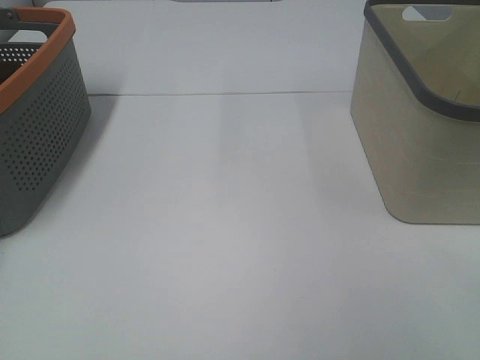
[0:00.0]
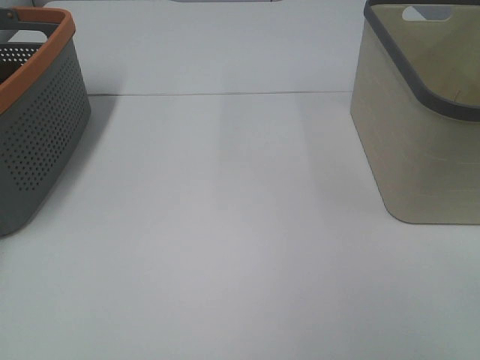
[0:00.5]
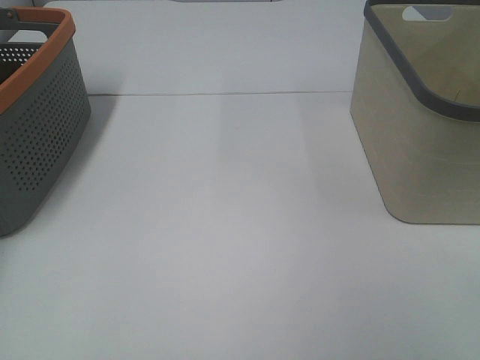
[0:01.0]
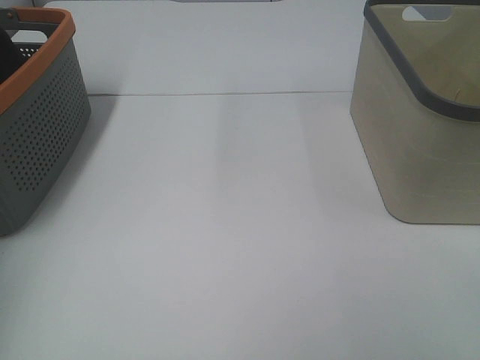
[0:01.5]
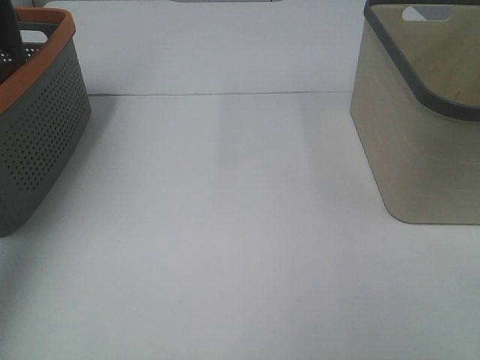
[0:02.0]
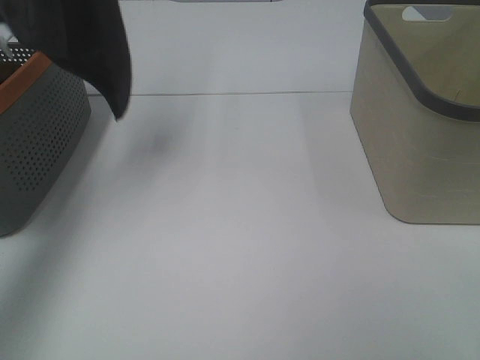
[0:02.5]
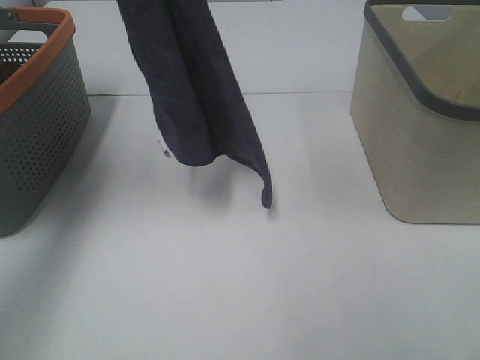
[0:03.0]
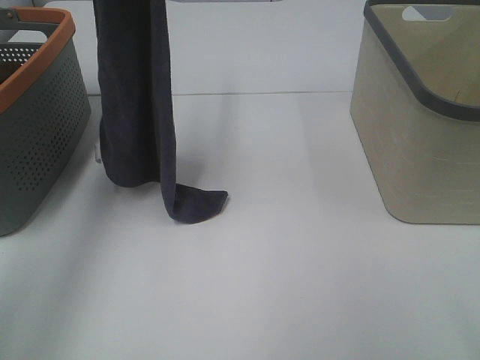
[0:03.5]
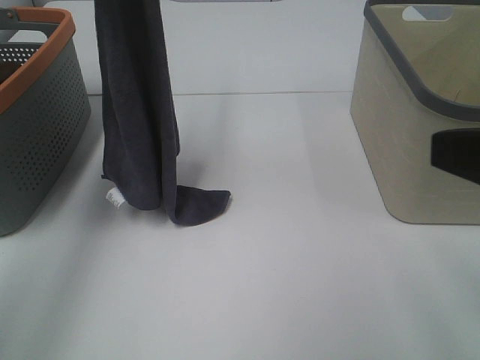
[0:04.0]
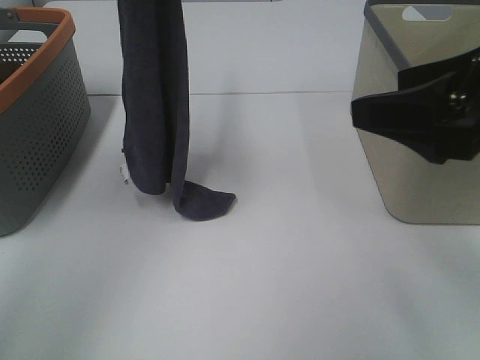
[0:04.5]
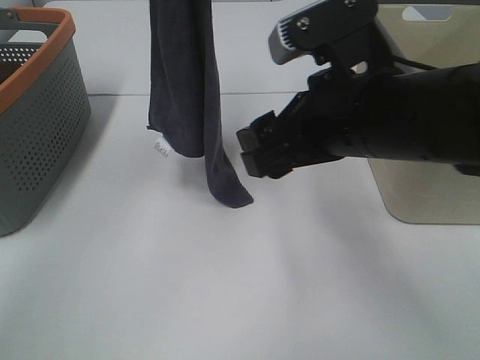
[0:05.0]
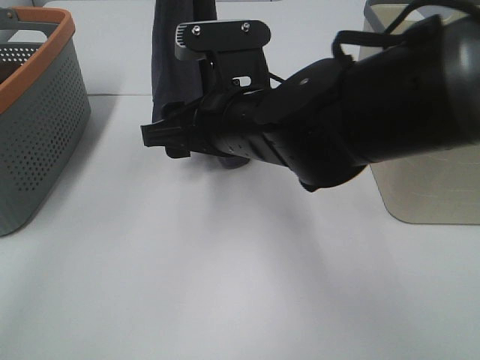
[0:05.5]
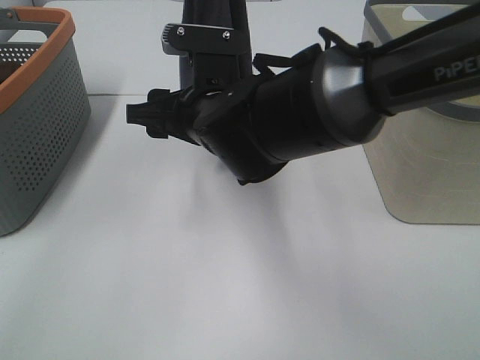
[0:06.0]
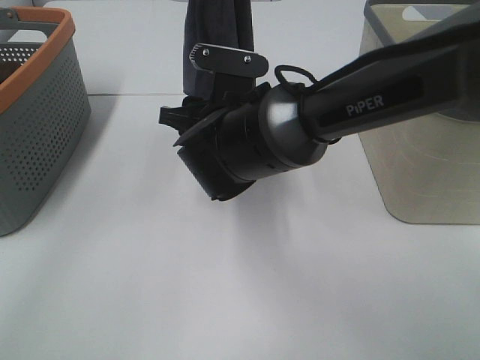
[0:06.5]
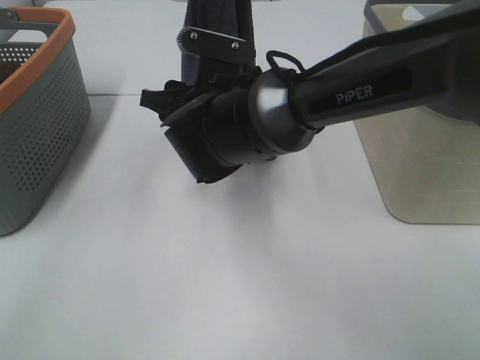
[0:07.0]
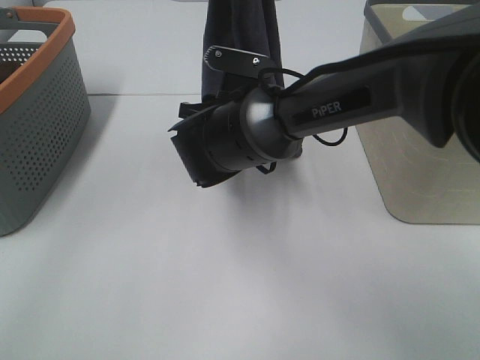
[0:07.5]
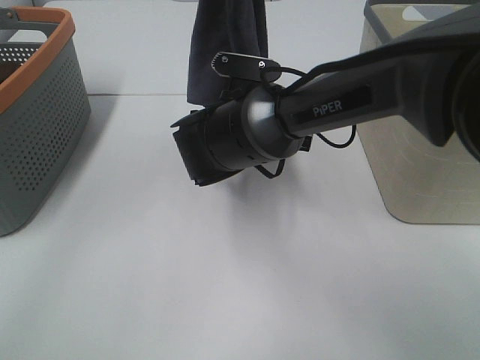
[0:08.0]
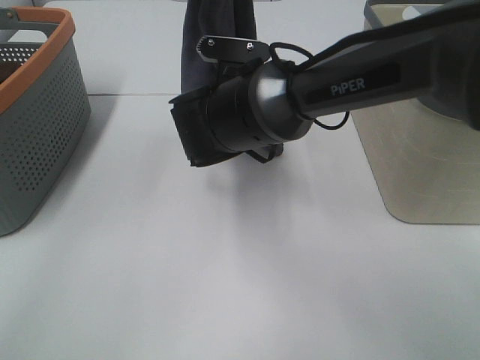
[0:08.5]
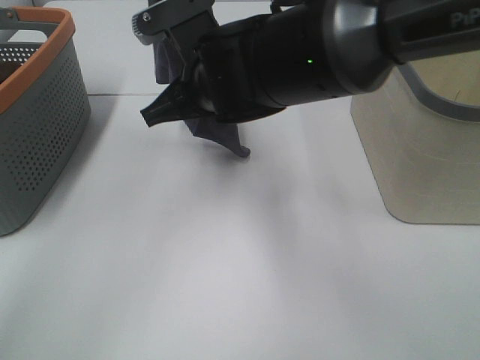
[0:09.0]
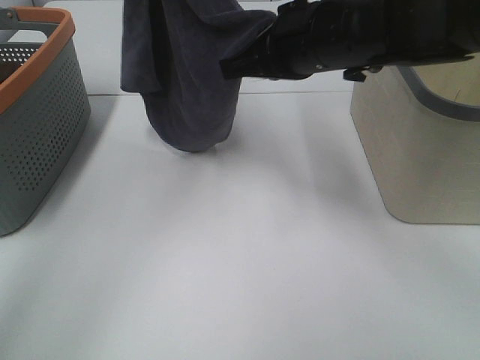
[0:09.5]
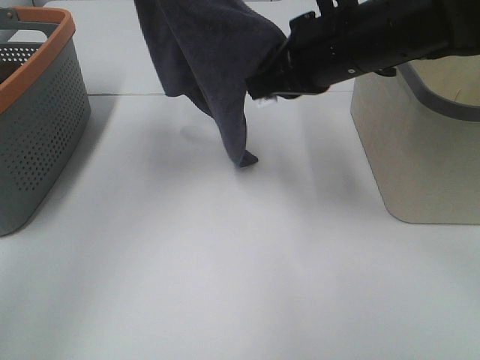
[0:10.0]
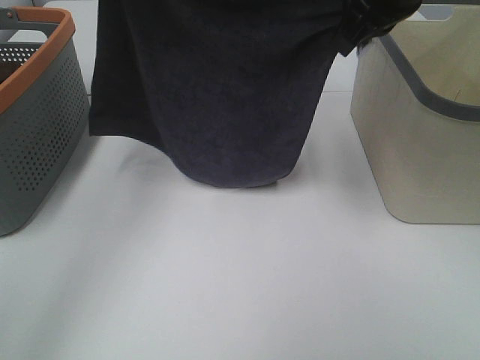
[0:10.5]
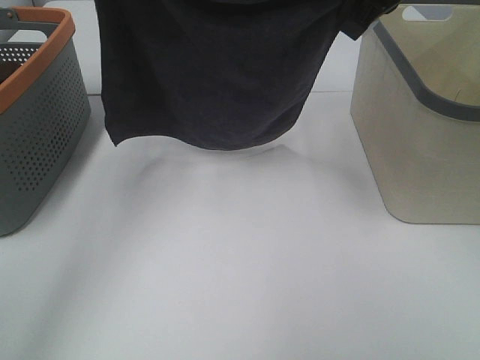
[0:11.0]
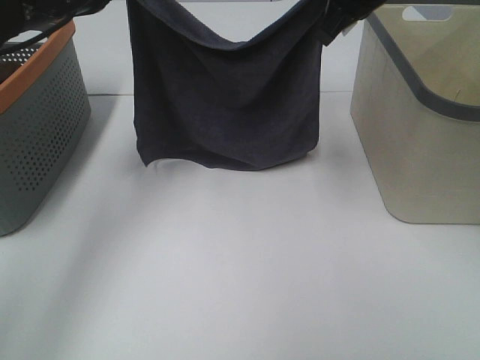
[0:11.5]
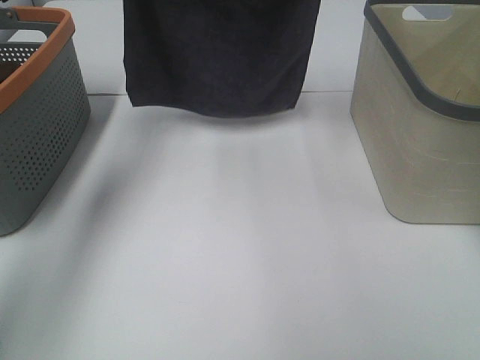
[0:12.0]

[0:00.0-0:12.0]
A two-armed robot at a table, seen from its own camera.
Task of the whole recording: Remove the towel and place it.
Step, 0:03.0 to 0:08.0: Right hand: grab a corner of the grey towel and straighten it.
Step, 0:08.5 to 0:11.0: Left hand: spread the grey towel flat on the table.
Step, 0:08.5 to 0:11.0: Right hand: spread the grey towel flat on the table.
0:00.0 to 0:02.0: The left gripper is displaced upward by roughly 35 cm, and closes up.
0:02.0 to 0:04.0: The left gripper travels to the right and downward by roughly 20 cm. Meanwhile the right gripper moves forward, approximately 10 cm.
0:04.0 to 0:06.0: The right gripper moves to the left, forward and downward, some 35 cm, while the left gripper heads to the right, covering about 10 cm.
0:06.0 to 0:08.0: The right gripper goes roughly 5 cm downward.
0:08.0 to 0:10.0: The right gripper moves upward and to the right, about 15 cm, and closes. Meanwhile the left gripper heads to the left, covering approximately 10 cm.
0:10.0 to 0:12.0: The right gripper moves forward and upward, about 20 cm. Meanwhile the left gripper goes approximately 10 cm downward and forward.

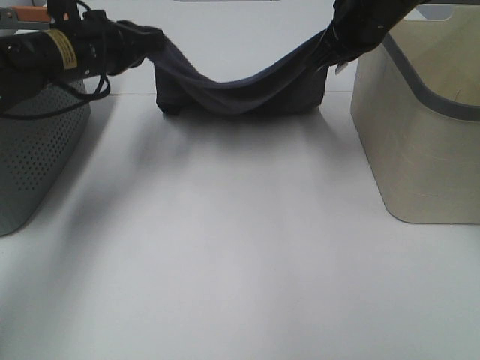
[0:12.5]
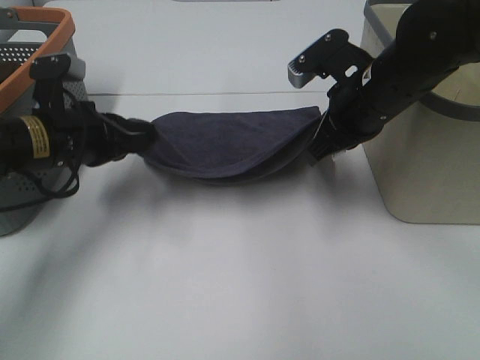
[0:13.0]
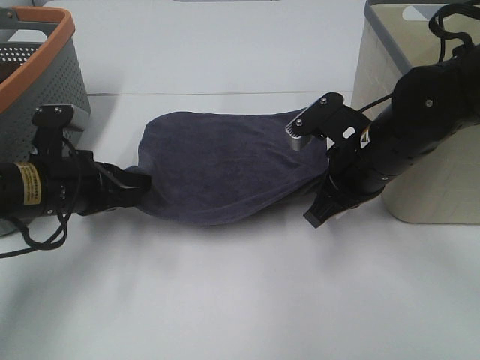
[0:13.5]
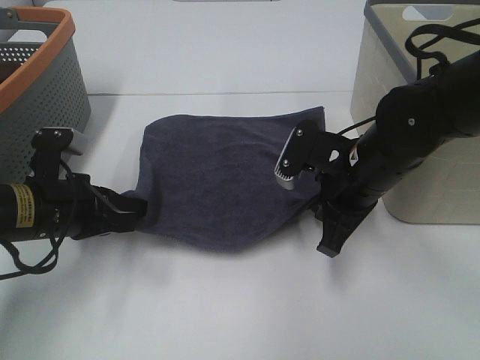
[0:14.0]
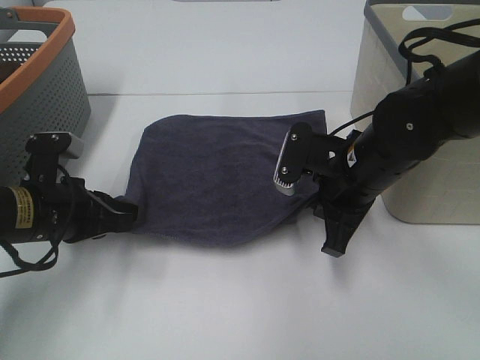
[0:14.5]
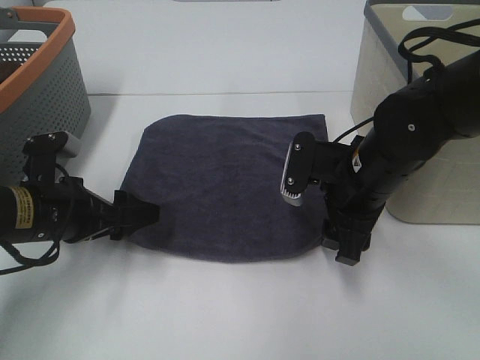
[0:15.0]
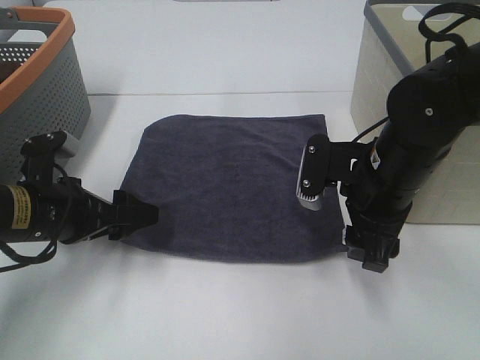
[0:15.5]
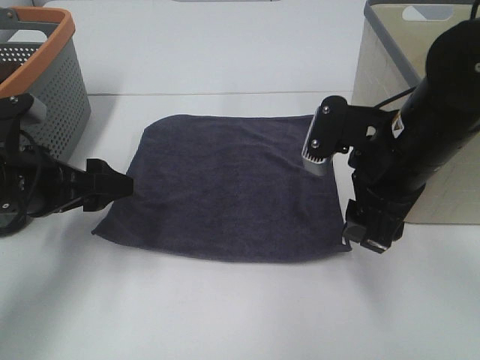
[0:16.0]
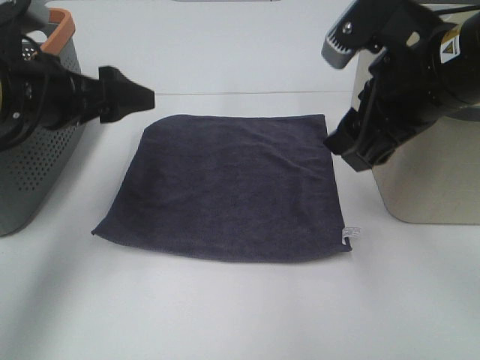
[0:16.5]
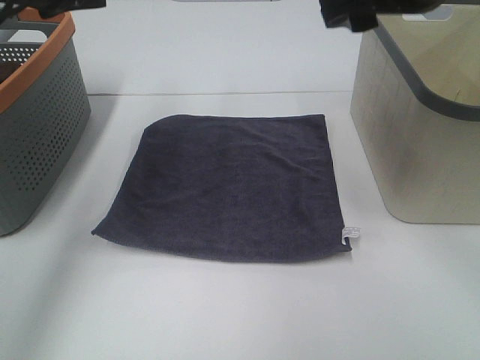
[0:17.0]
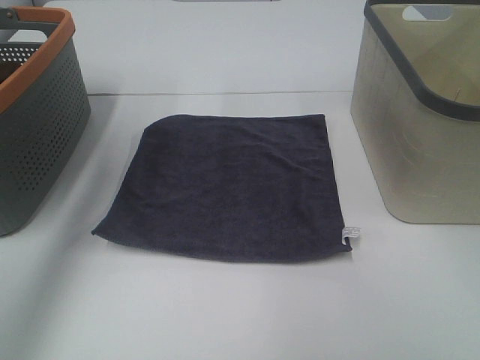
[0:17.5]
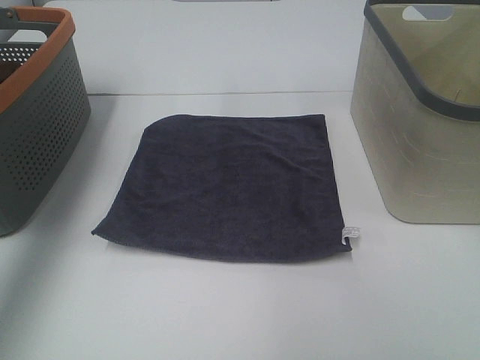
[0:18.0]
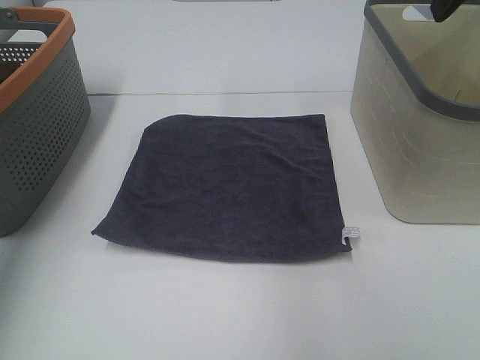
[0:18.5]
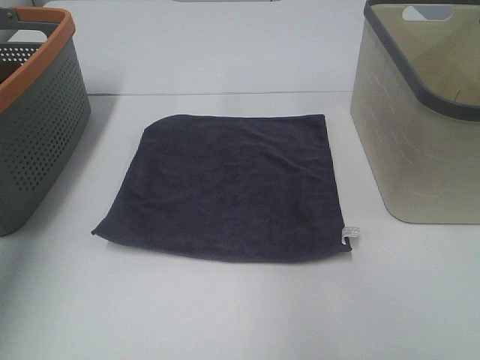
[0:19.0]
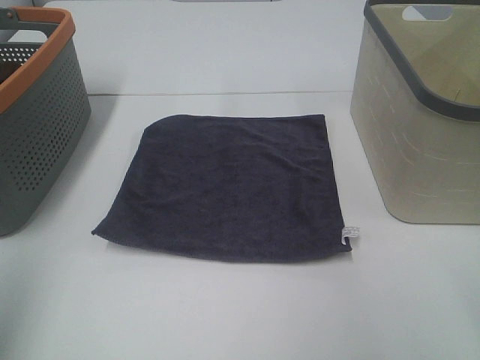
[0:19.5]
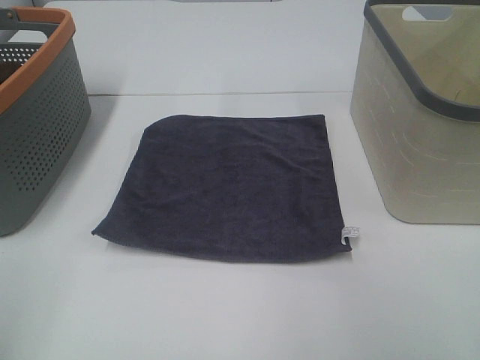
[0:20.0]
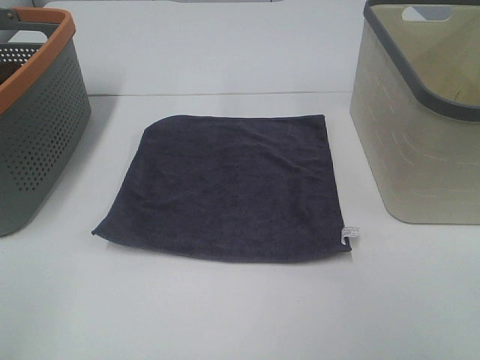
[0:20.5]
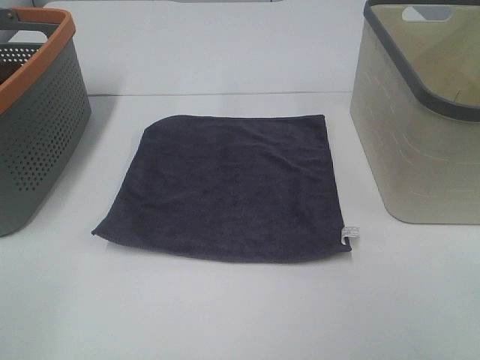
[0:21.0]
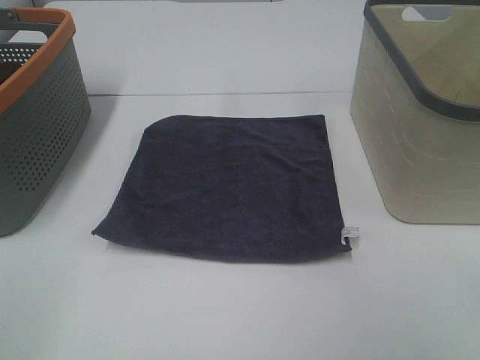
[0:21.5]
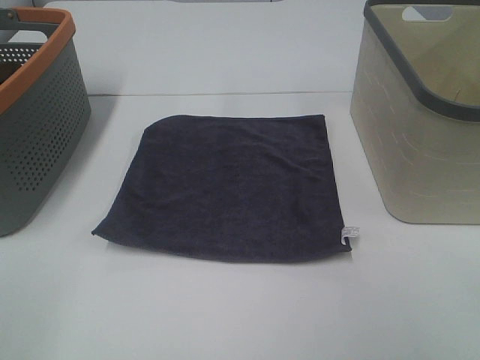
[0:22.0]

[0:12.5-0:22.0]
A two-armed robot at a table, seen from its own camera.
Task of the whole recording: Remove the towel and place it.
0:12.5 to 0:14.5: The two grippers go about 15 cm backward and downward.
0:14.5 to 0:16.5: Both grippers travel together upward, some 15 cm. The left gripper opens its fingers; the right gripper opens.
0:16.5 to 0:18.0: The right gripper goes some 15 cm upward and forward, while the left gripper heads upward and to the left, covering roughly 20 cm.
0:18.0 to 0:20.0: The left gripper goes roughly 30 cm backward.

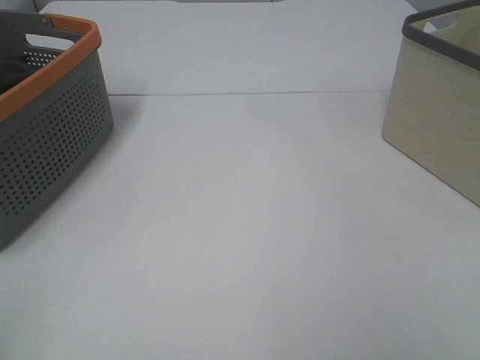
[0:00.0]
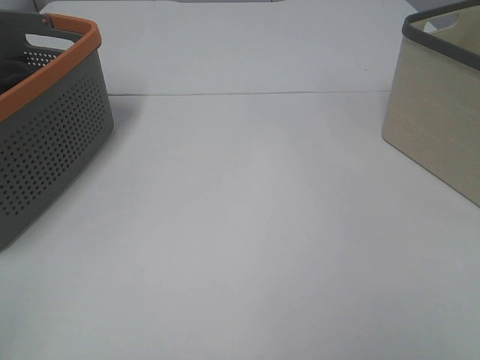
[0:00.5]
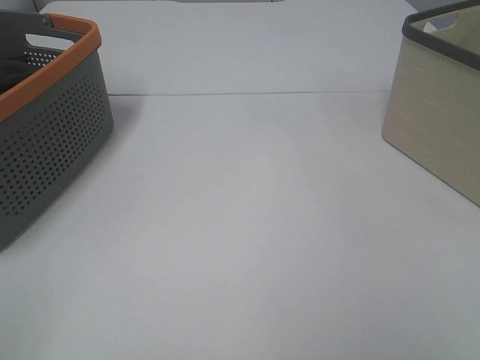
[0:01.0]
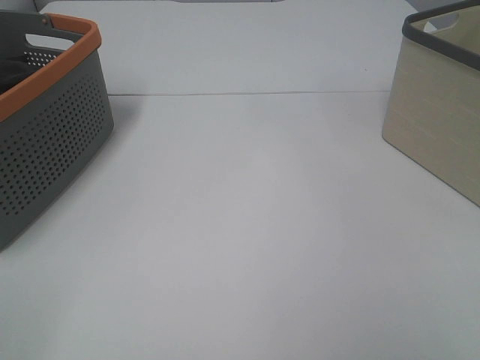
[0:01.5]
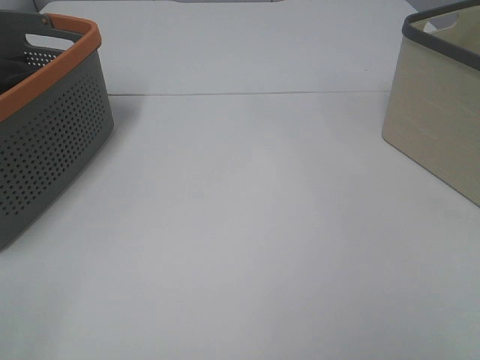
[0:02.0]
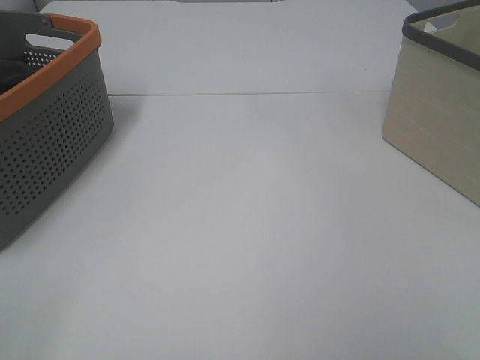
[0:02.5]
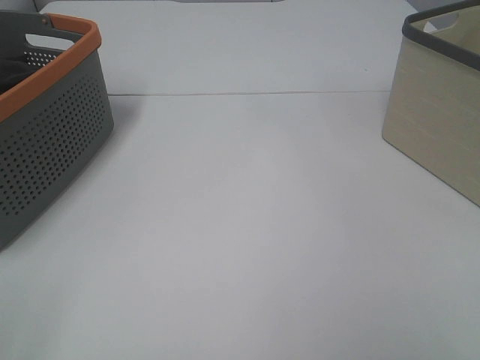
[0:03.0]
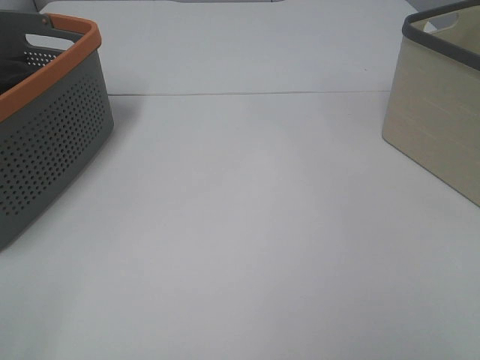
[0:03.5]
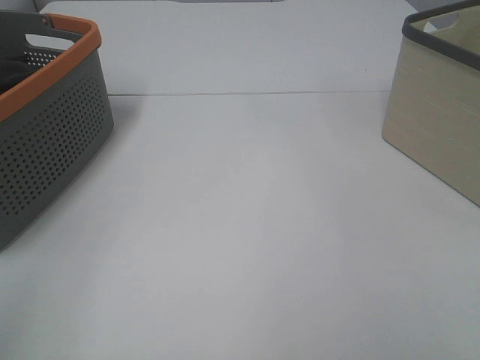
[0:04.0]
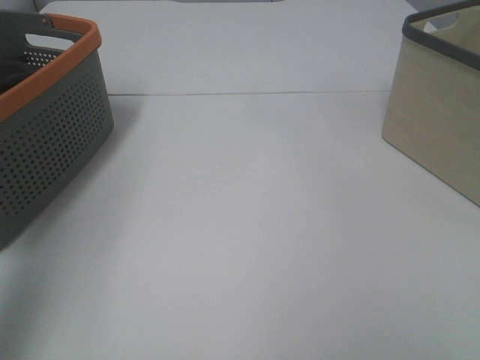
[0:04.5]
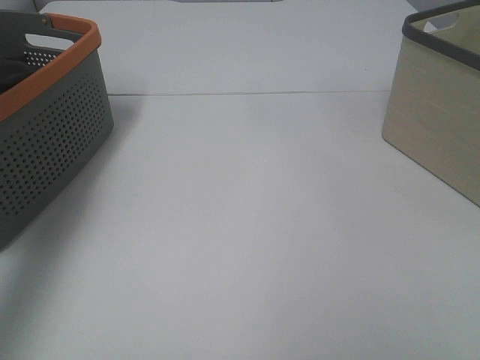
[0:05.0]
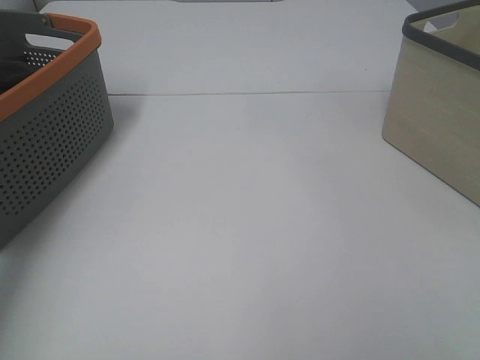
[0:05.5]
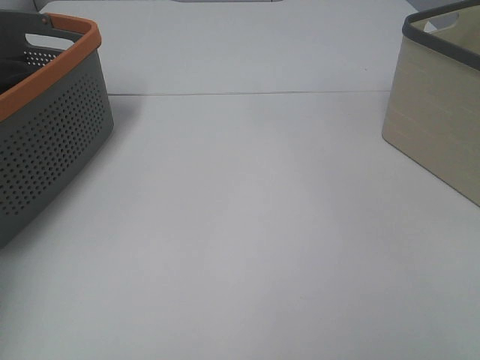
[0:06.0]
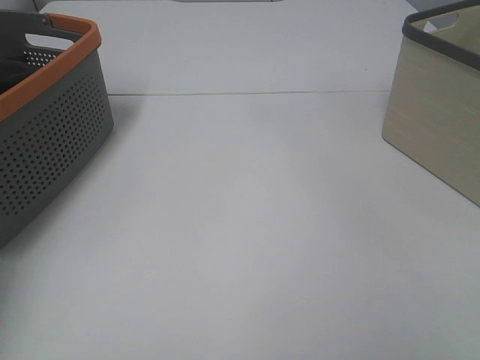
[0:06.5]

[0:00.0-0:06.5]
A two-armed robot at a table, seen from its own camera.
Task of the whole recording: Remove the towel and place it.
0:00.0 to 0:02.0: Neither gripper changes place.
0:02.0 to 0:04.5: The left gripper heads forward and upward, covering approximately 25 cm.
0:04.5 to 0:06.5: The left gripper goes roughly 35 cm forward and downward.
